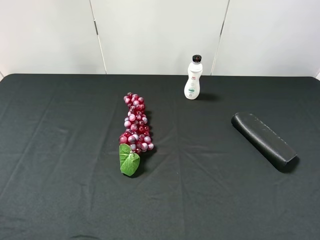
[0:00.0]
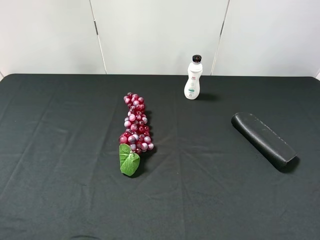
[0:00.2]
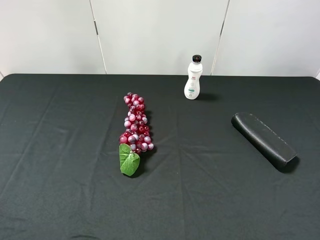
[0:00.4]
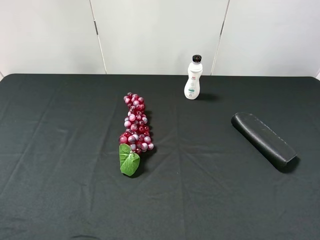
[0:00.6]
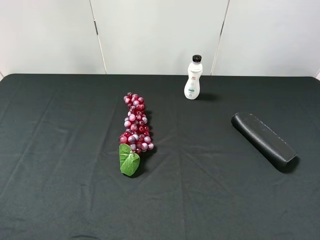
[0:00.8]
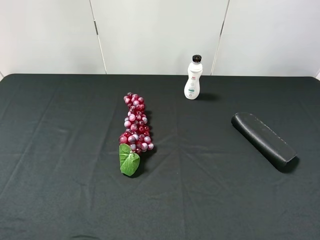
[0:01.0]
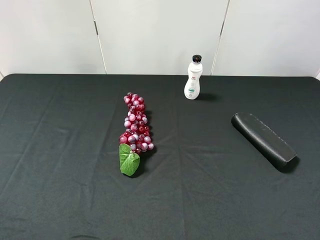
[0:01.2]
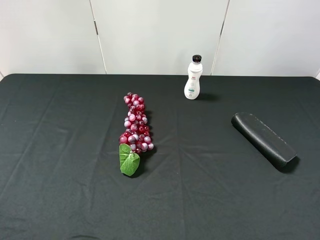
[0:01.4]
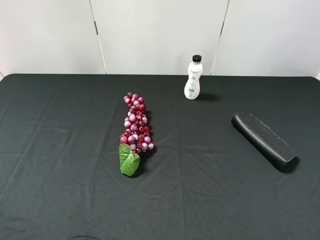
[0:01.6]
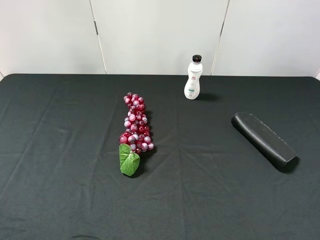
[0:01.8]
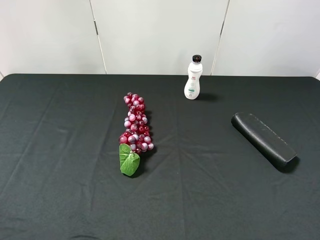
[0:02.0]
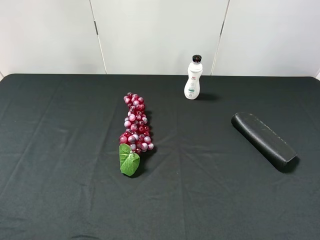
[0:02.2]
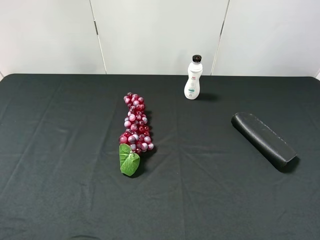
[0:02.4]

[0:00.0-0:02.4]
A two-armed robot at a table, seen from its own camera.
Task of the whole recording: use the left gripper to pick up the item and transfer it from the left gripper to the right gripper.
0:01.2 to 0:02.4: Both grippers stay put.
